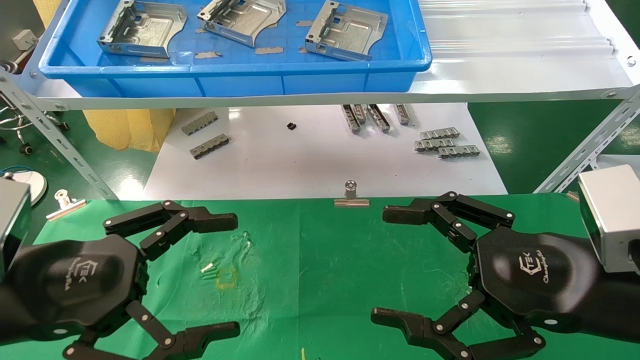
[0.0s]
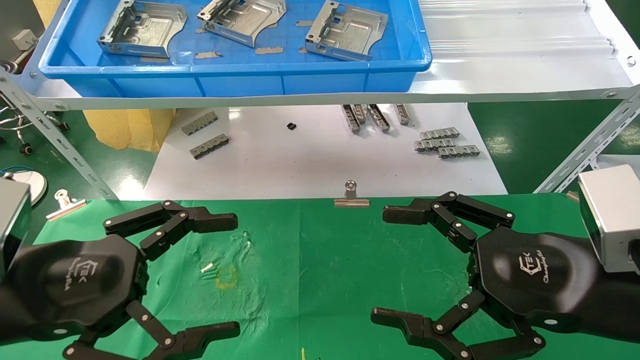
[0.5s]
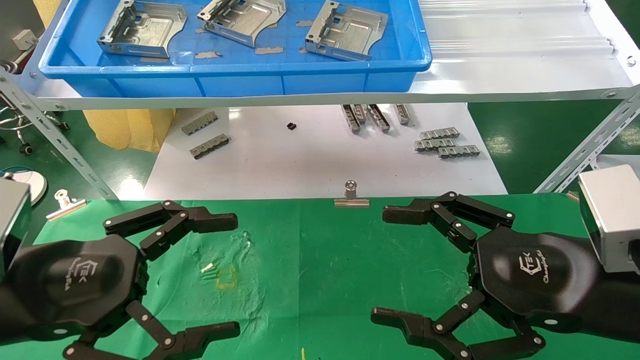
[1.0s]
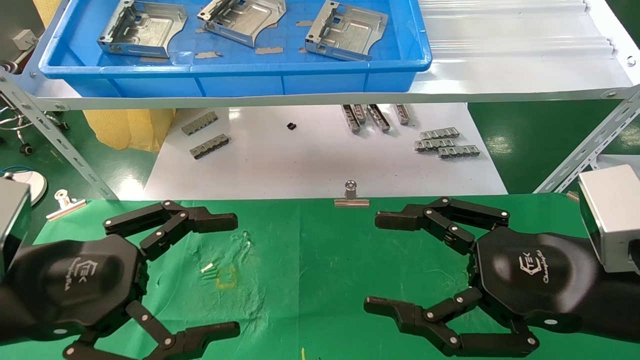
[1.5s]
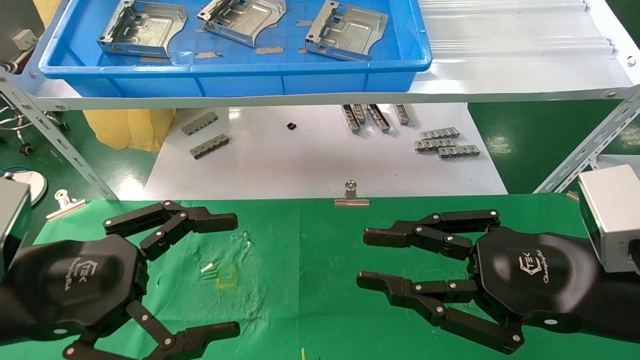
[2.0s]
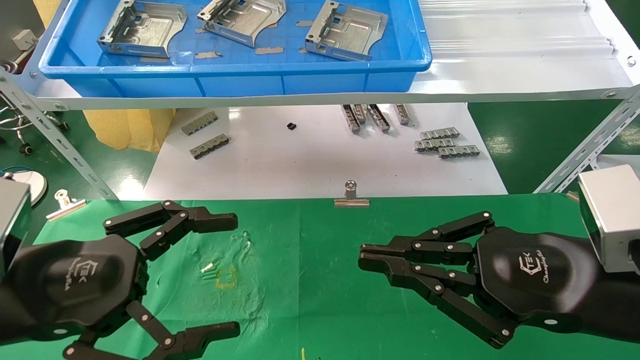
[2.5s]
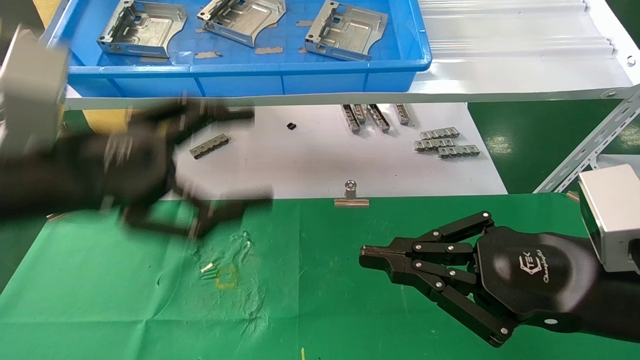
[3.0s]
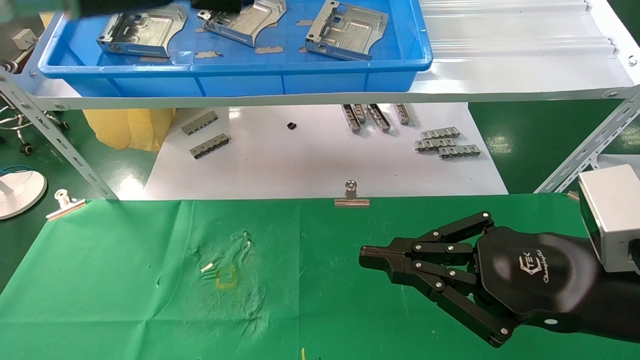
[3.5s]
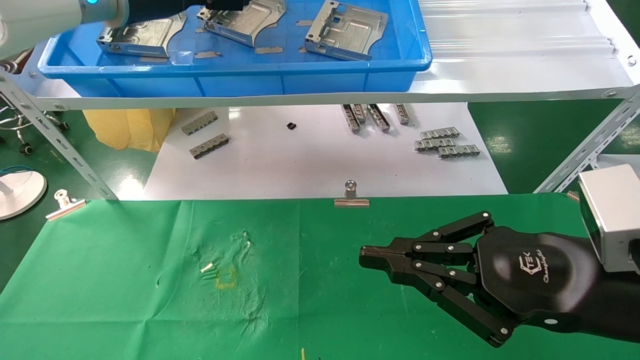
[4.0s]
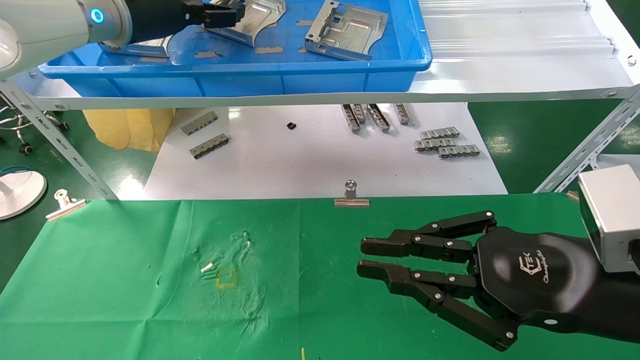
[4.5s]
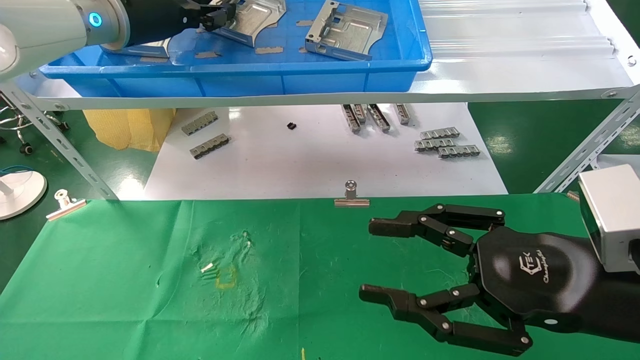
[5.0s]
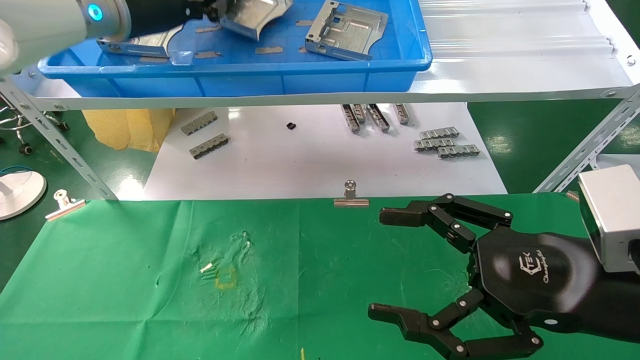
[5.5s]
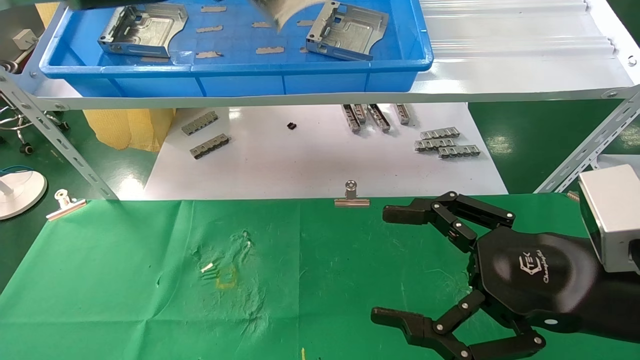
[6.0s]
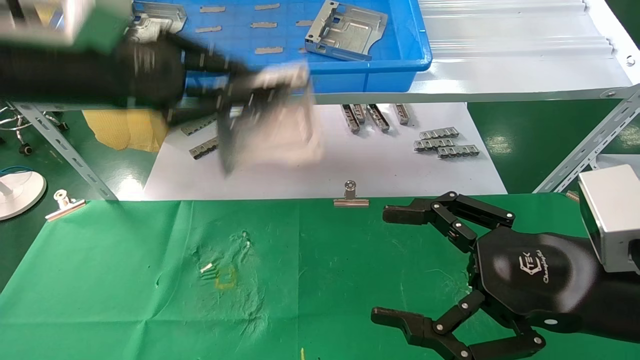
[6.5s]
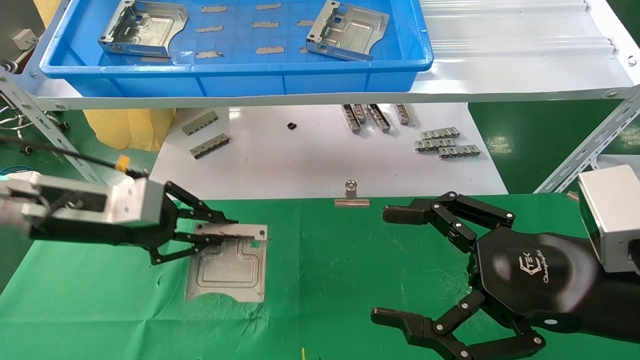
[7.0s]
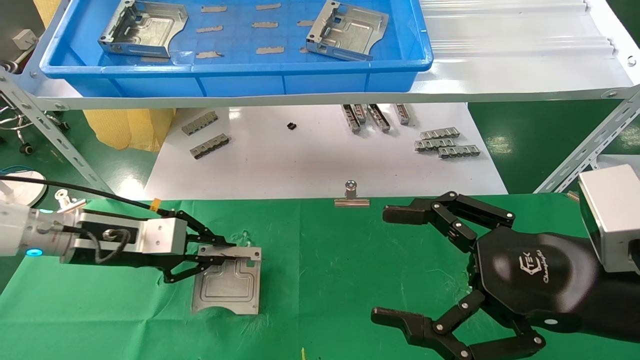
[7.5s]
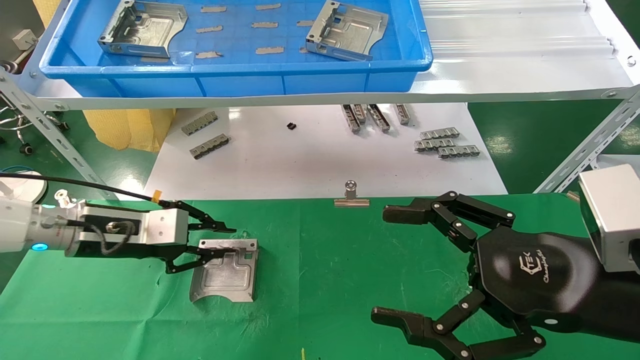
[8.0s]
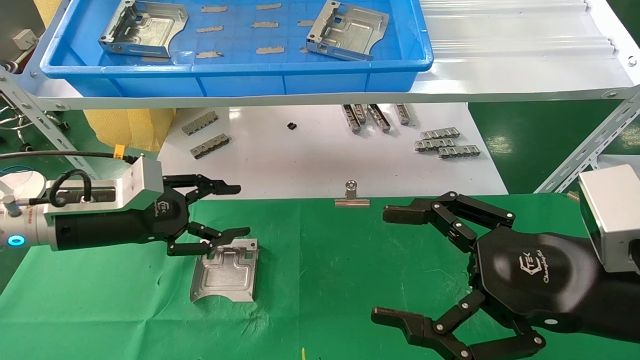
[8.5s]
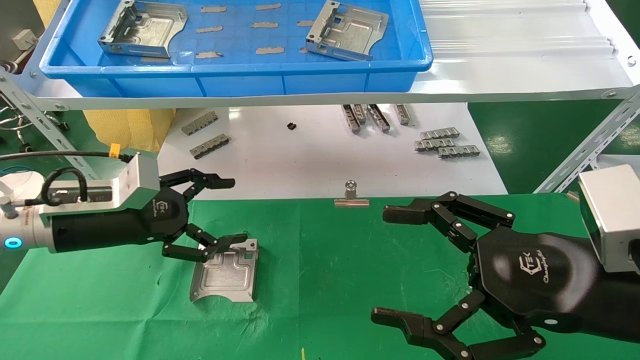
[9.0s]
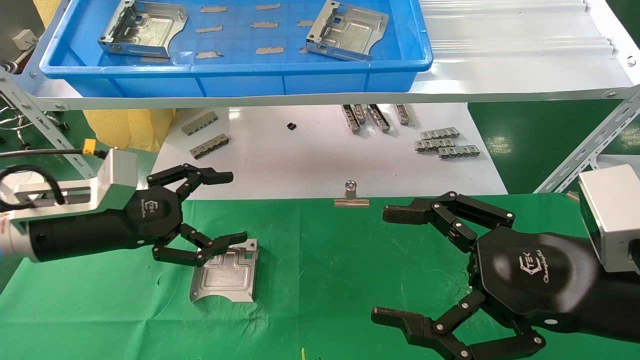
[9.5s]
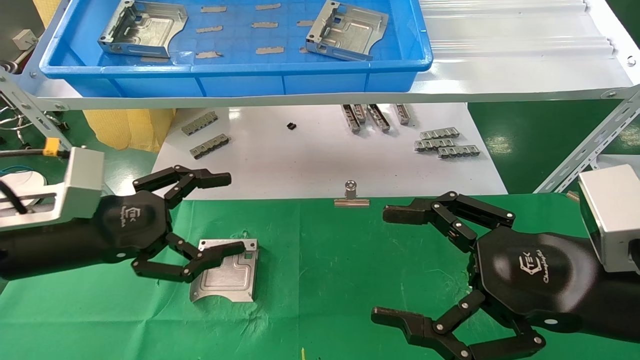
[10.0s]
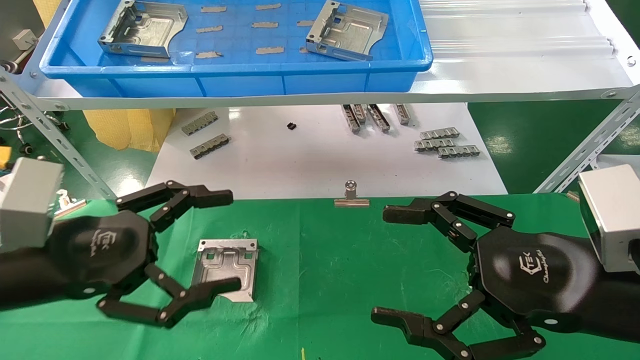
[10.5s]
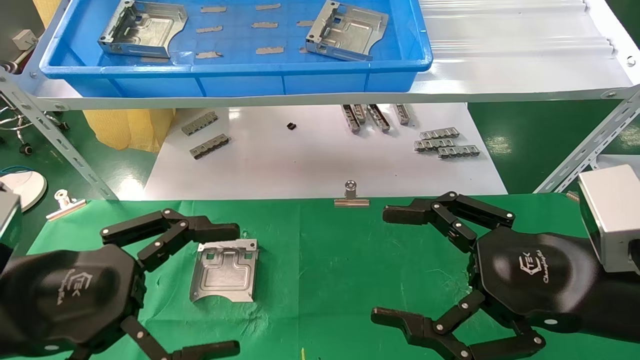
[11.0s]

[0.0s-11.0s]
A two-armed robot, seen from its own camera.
Task of the whole recording: use the mechanical arm to pick up the parts and place them on the table.
Step, 3.0s to 5.0s: Pick up the hard drive bracket from the feeding area.
Step, 5.5s to 7.5s: Place the hard drive bracket into the box.
0.0s to 2.0s: The right gripper closes up.
2.0s to 3.5s: The right gripper closes. The left gripper shifts roughly 30 cm upward and forward.
3.5s to 5.5s: The left gripper moves forward, about 5 cm, and closes. The right gripper opens.
5.5s to 7.5s: The left gripper heads downward, covering roughly 30 cm.
7.5s to 9.0s: The left gripper opens.
9.0s to 11.0s: The left gripper goes approximately 15 cm backward.
